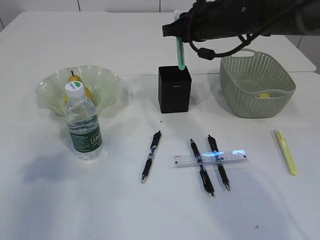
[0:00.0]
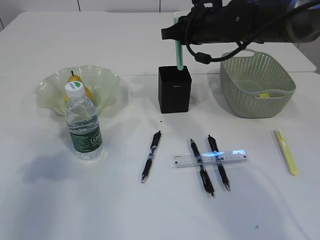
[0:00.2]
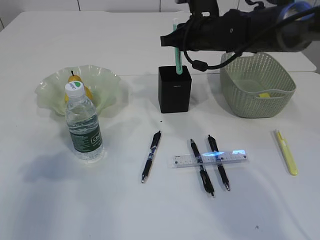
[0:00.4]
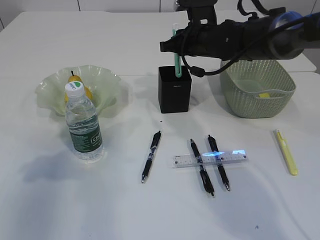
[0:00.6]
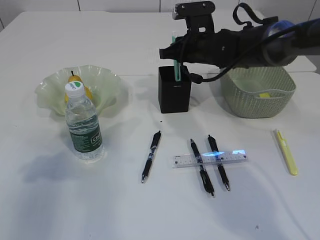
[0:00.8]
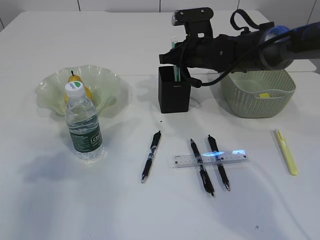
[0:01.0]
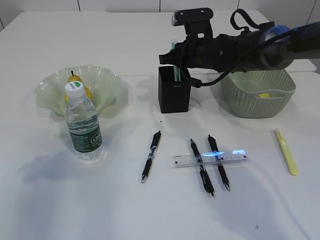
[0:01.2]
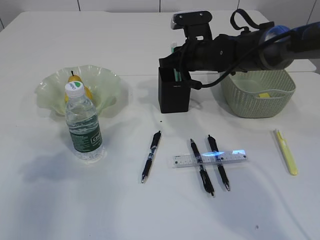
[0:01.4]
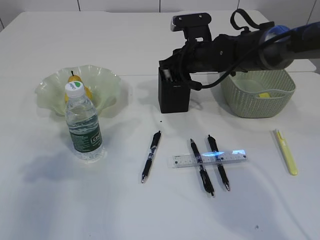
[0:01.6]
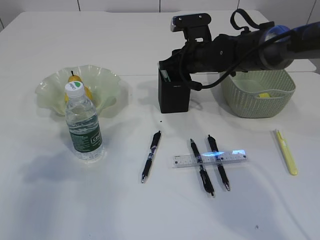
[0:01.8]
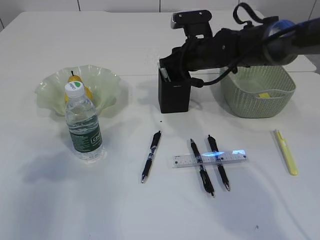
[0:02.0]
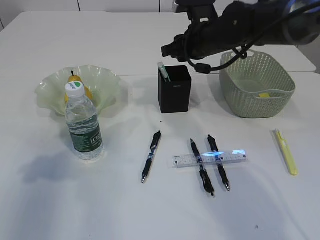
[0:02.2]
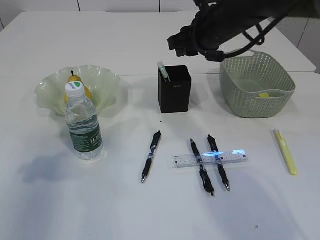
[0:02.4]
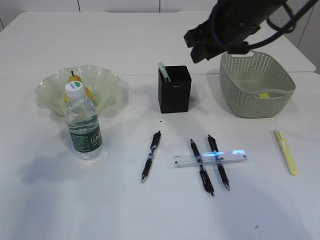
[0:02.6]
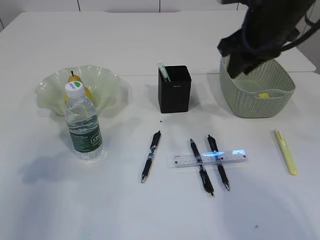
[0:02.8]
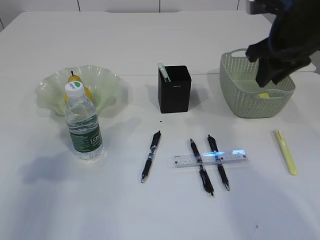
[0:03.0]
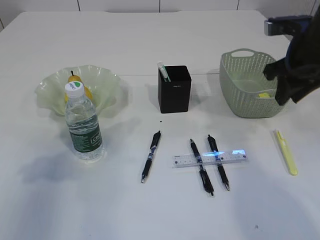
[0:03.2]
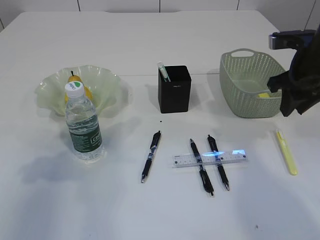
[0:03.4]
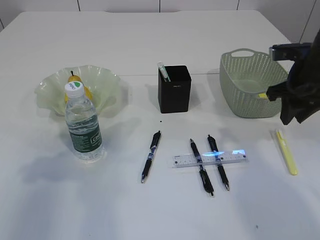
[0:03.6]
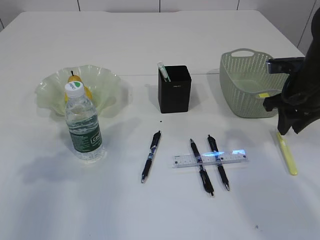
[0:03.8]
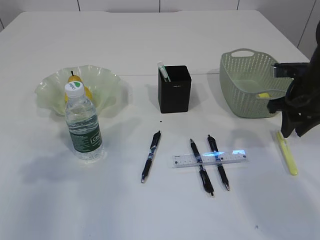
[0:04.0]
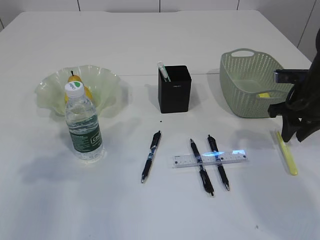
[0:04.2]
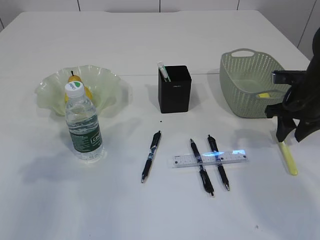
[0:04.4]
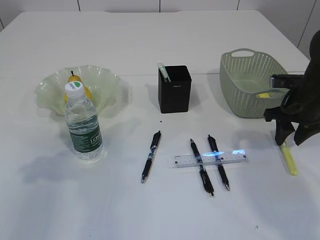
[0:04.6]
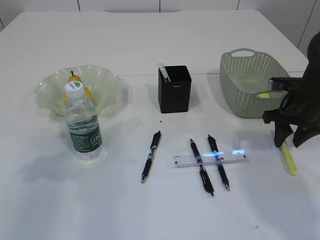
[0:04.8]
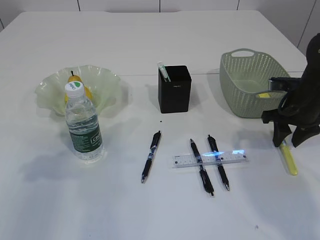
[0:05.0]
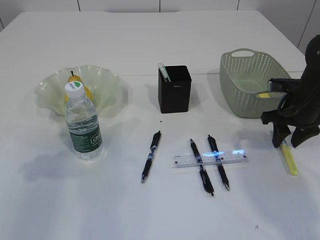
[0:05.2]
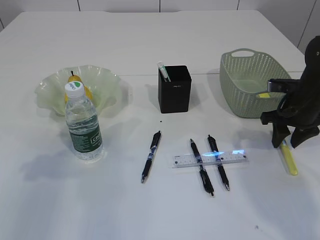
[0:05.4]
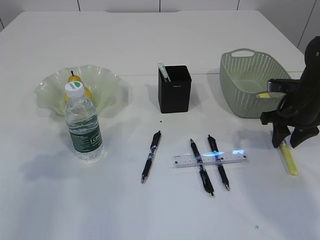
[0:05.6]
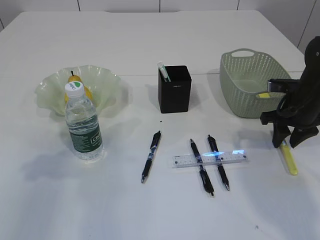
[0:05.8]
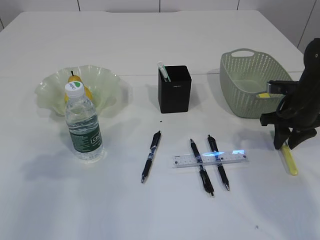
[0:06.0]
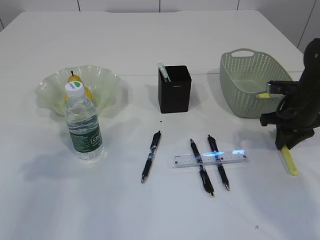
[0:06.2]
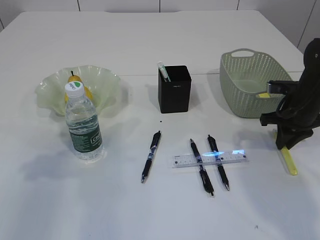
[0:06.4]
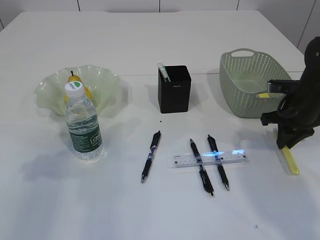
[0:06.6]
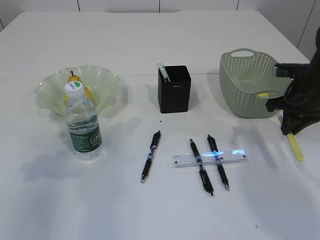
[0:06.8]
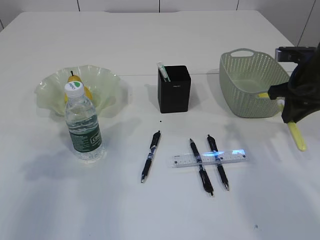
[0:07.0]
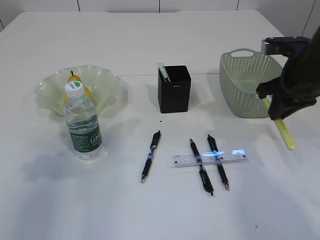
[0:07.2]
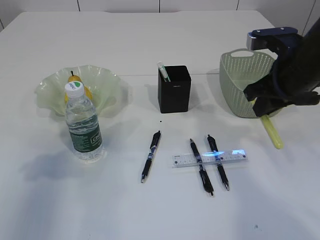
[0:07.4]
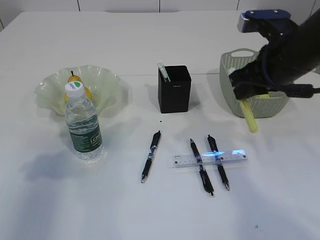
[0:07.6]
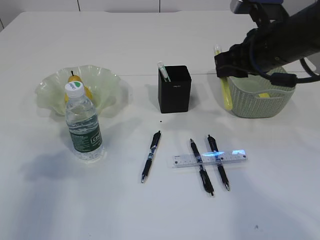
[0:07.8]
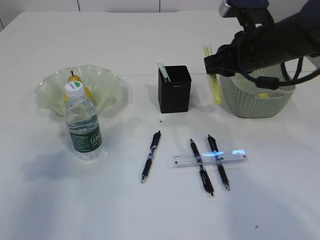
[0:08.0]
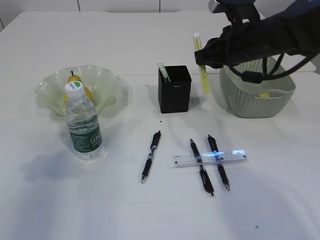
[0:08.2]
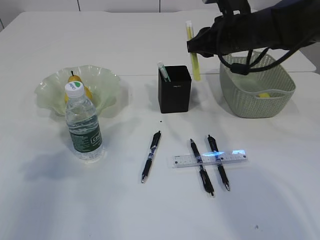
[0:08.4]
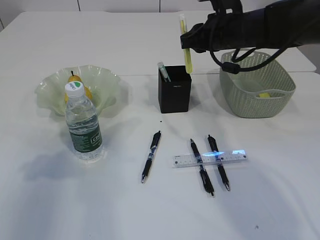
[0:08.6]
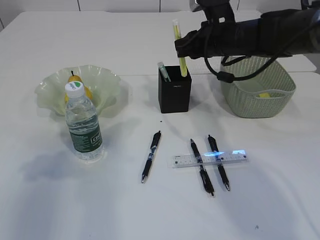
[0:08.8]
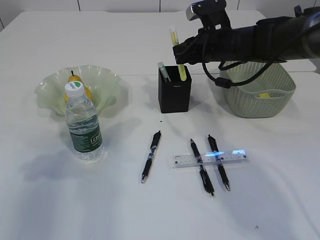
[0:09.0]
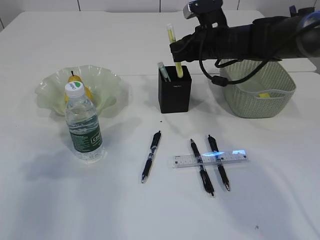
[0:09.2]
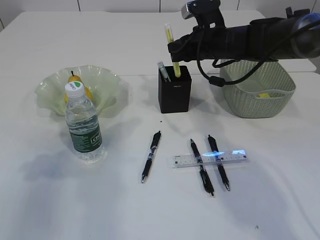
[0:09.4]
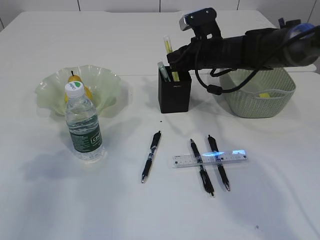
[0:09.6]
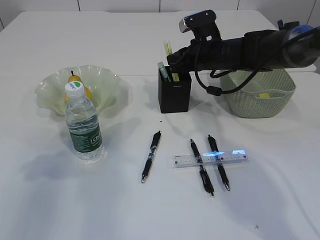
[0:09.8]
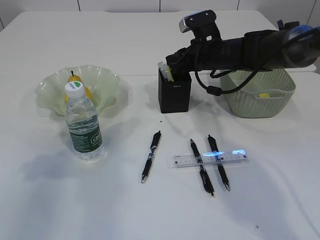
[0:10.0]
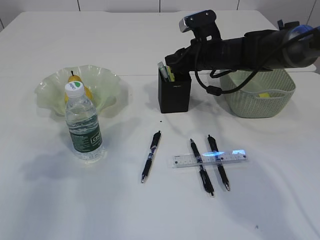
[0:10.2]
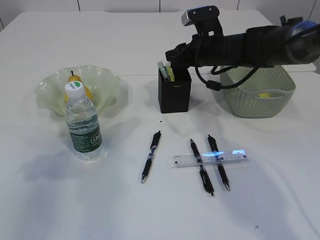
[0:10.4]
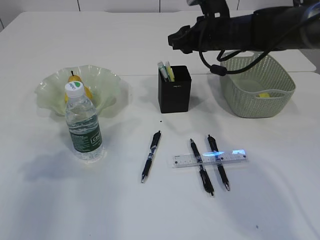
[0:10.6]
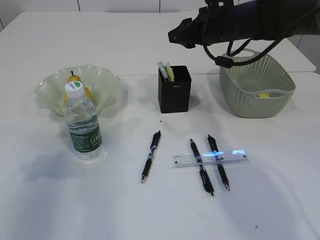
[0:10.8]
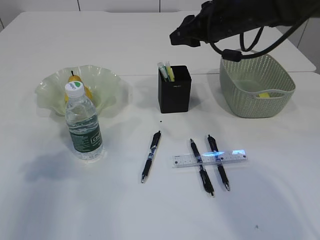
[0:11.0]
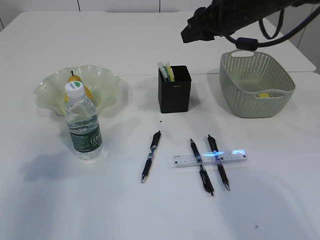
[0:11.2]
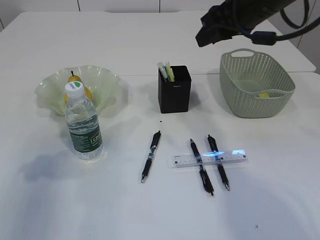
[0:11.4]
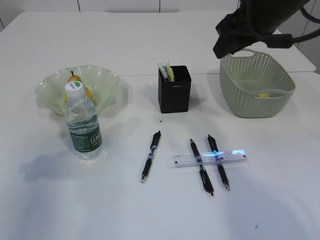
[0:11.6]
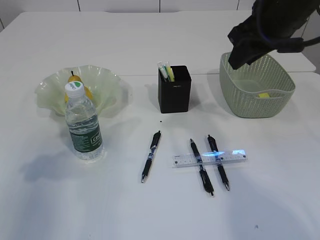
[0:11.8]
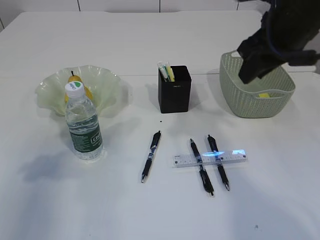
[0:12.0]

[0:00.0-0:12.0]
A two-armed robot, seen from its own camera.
Step, 0:00.0 to 0:02.2: Place the blue knife into the pen holder.
Step, 0:02.4 to 0:06.8: pick up the yellow knife.
Step, 0:07.0 to 0:10.4: place the yellow knife into the pen holder.
0:00.0 to 0:01.6: The right gripper travels downward by about 10 cm.
0:01.6 to 0:03.0: The right gripper travels upward, backward and to the right by some 20 cm.
0:03.0 to 0:04.4: The right gripper heads downward and to the right, covering some 15 cm.
0:04.4 to 0:06.0: The grippers move only a little.
0:06.0 to 0:07.6: The right gripper travels upward, to the left and backward by some 20 cm.
0:07.6 to 0:09.0: The right gripper is displaced forward and to the left by approximately 15 cm.
0:09.0 to 0:10.4: The grippers stay close to where they were, moving slightly.
0:10.4 to 0:12.0: The right gripper is displaced backward and upward by some 20 cm.

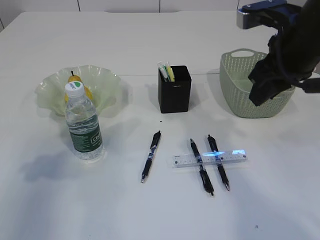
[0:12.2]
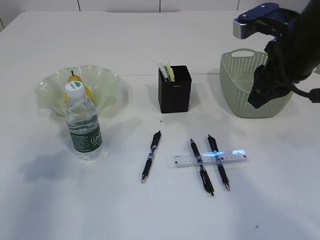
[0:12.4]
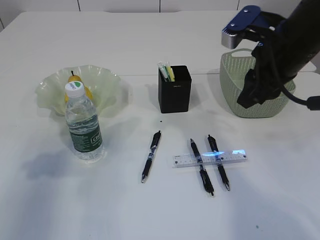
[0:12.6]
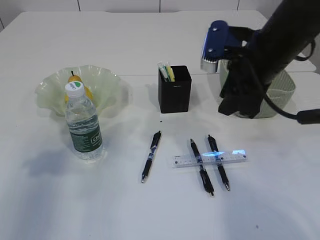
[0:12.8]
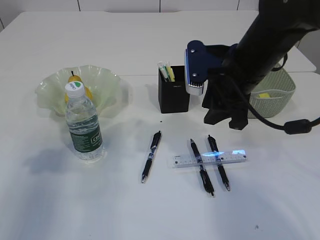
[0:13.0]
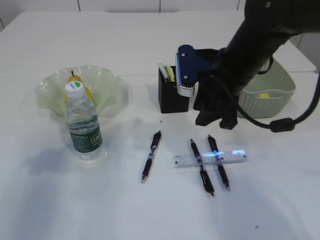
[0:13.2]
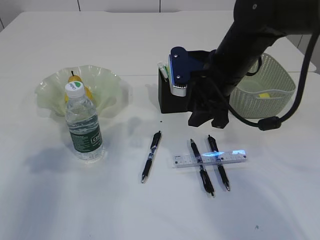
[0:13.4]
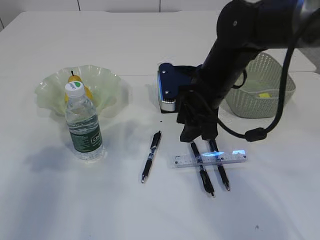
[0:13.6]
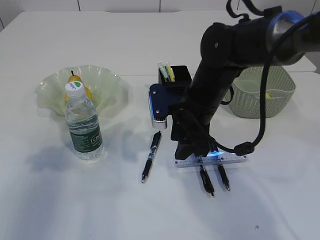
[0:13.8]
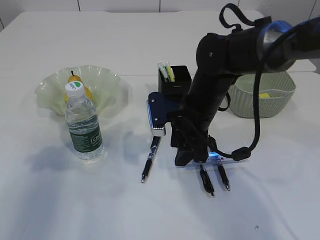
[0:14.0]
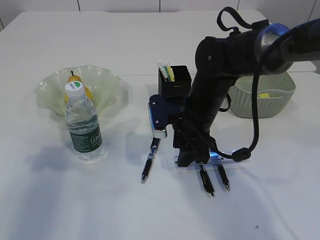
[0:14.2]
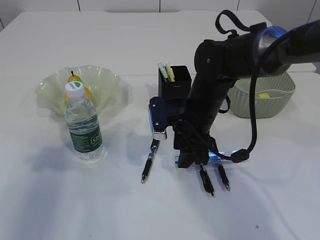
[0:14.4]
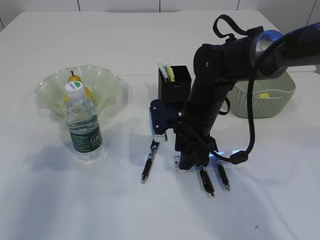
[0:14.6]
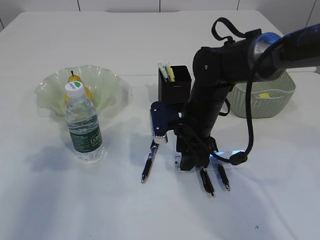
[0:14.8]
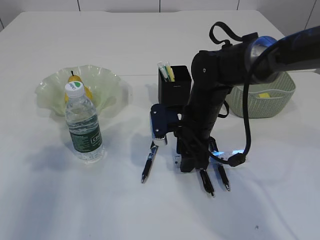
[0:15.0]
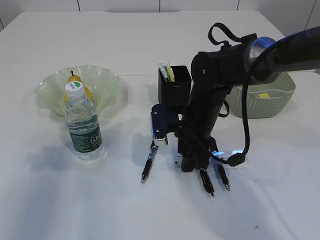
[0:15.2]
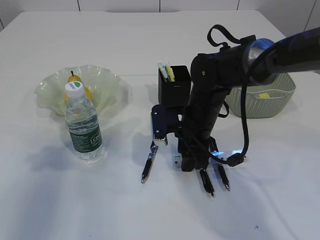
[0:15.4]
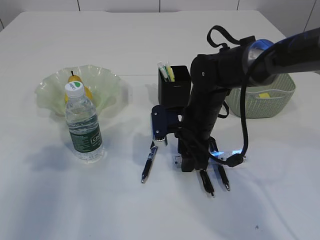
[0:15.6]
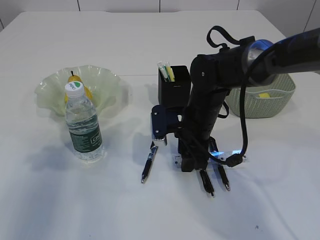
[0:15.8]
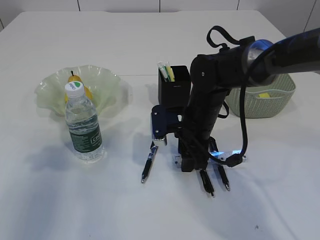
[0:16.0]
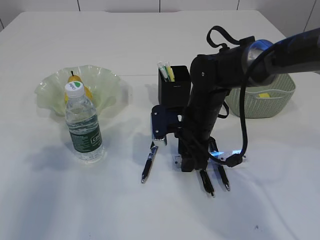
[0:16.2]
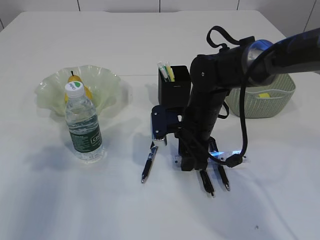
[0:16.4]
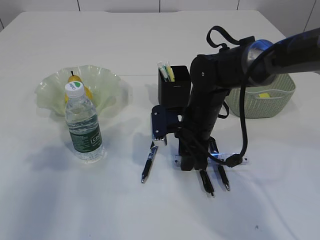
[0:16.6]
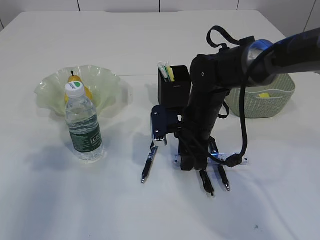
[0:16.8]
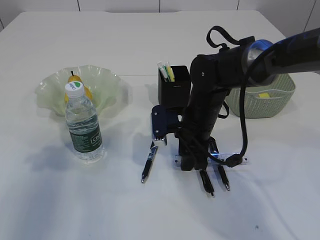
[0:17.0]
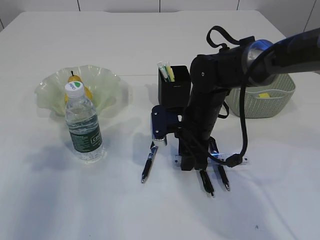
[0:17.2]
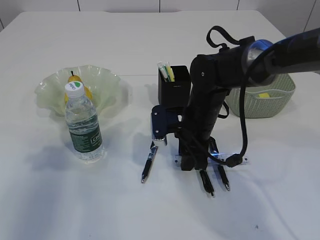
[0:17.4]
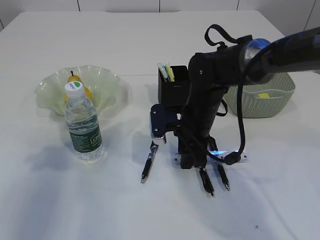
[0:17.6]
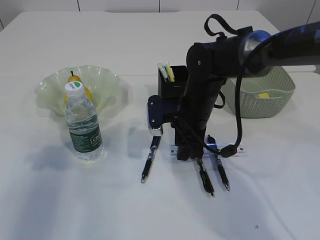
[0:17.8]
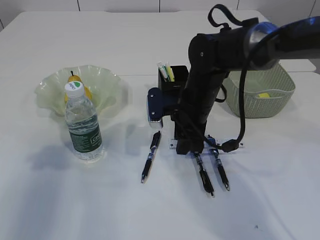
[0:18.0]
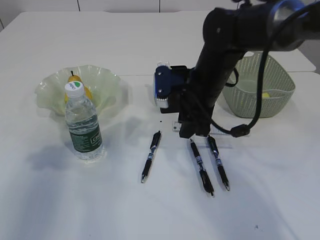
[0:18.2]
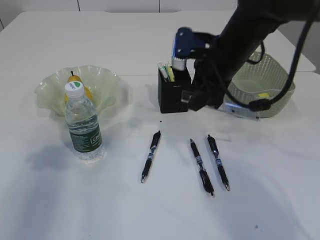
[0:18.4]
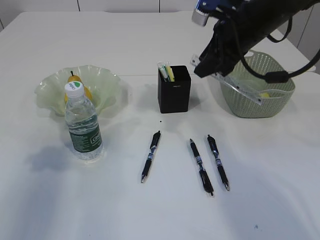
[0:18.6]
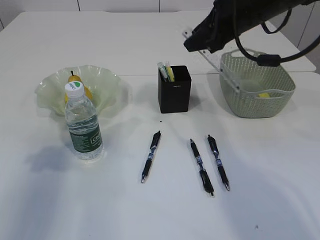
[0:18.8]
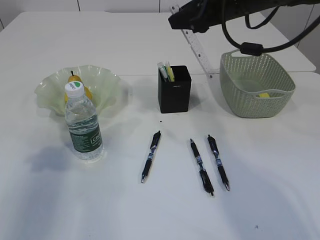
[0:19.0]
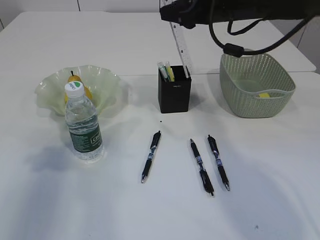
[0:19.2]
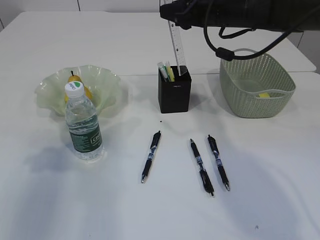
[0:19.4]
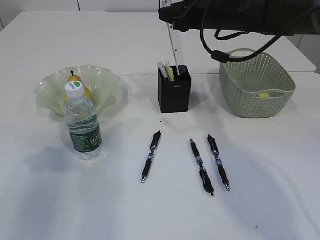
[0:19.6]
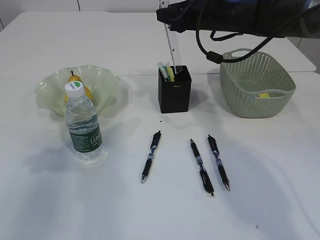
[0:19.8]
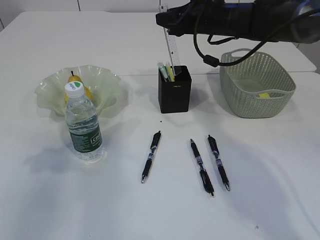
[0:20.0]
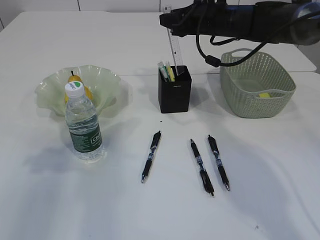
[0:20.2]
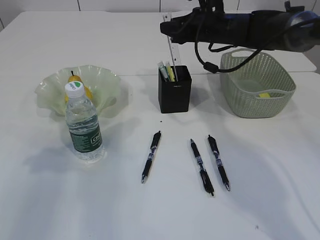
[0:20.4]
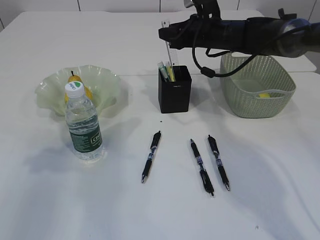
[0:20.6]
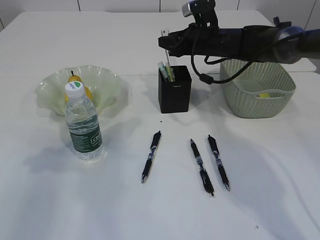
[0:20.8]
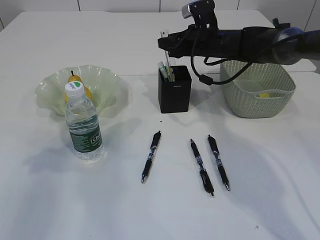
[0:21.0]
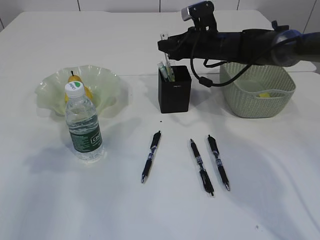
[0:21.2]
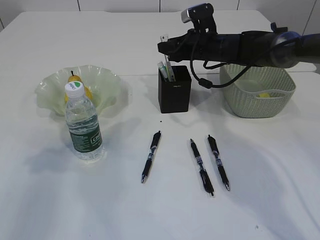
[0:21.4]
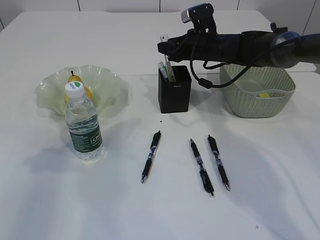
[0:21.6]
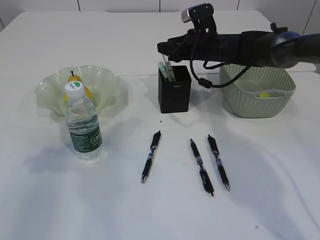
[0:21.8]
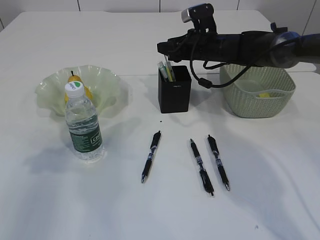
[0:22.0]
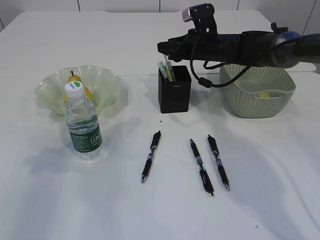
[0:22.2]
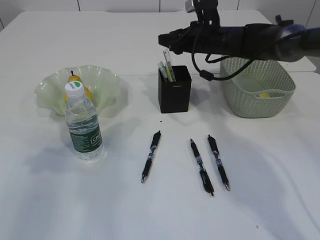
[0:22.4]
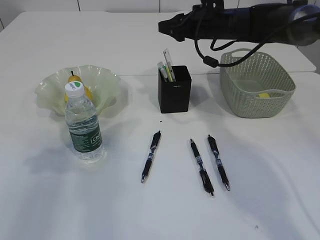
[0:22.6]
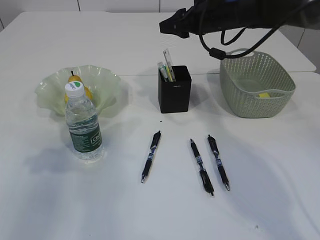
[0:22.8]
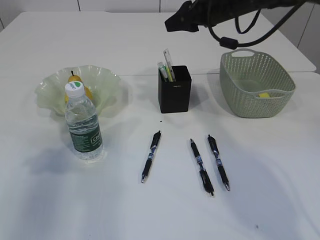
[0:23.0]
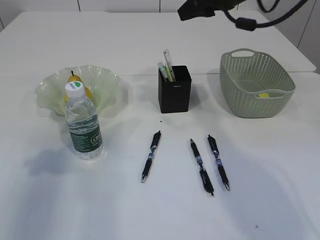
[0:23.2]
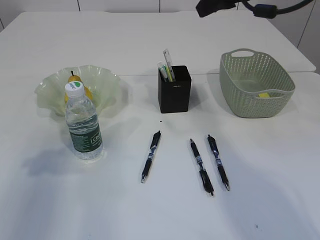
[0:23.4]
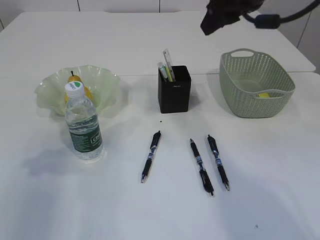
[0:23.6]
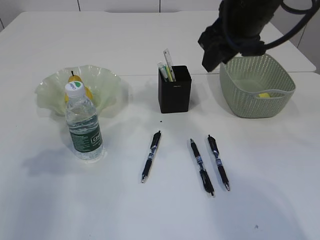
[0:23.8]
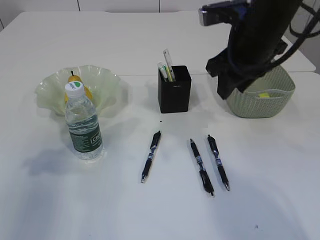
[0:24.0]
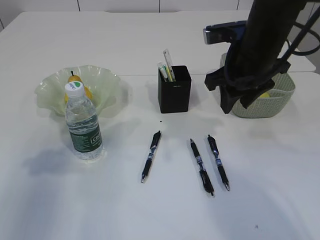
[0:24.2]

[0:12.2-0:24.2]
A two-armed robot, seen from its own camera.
Step, 0:12.2 to 0:17.8: pick up the ruler.
Step, 0:18.0 to 0:22.4: Place the ruler into the pen holder.
0:12.2 to 0:13.8: The right gripper shifts approximately 15 cm downward and to the left.
0:13.8 to 0:15.2: The right gripper moves downward, approximately 5 cm.
0:15.2 to 0:16.6: Both grippers stay about where they are.
0:16.6 to 0:18.2: The right gripper heads upward, covering approximately 5 cm.
0:18.2 to 0:19.8: The right gripper moves forward and upward, about 15 cm.
0:19.8 to 0:21.2: The right gripper shifts roughly 10 cm downward.
0:21.2 to 0:22.6: The grippers make only small movements.
0:22.6 to 0:24.2: The right gripper heads backward, covering roughly 15 cm.
